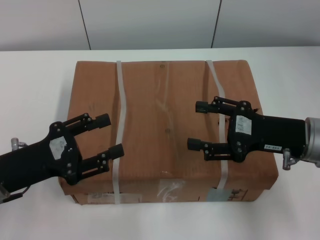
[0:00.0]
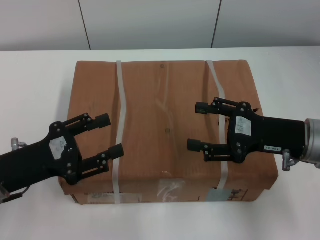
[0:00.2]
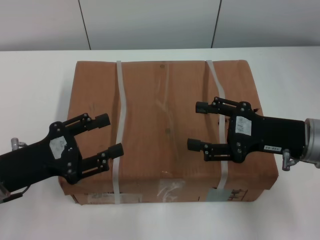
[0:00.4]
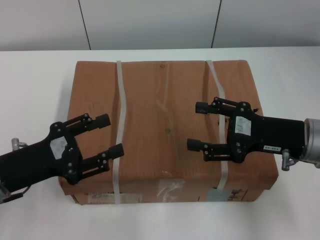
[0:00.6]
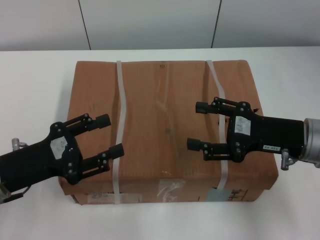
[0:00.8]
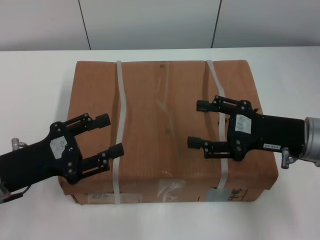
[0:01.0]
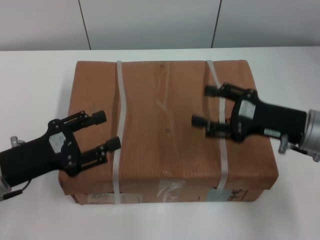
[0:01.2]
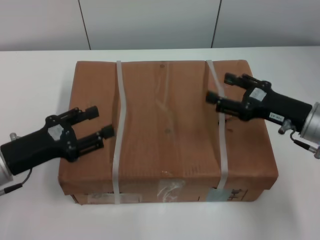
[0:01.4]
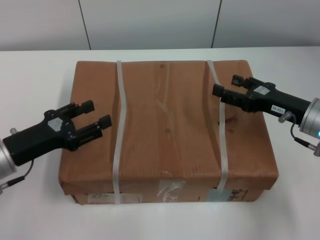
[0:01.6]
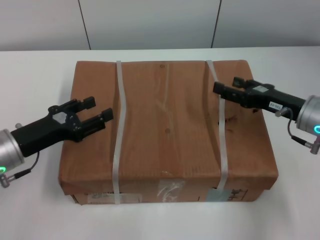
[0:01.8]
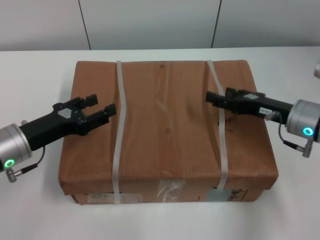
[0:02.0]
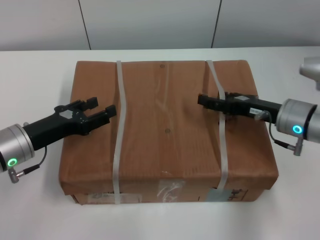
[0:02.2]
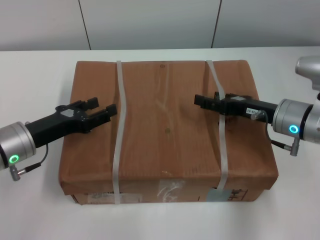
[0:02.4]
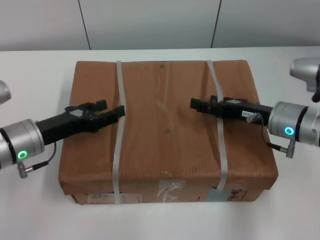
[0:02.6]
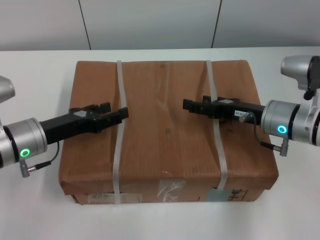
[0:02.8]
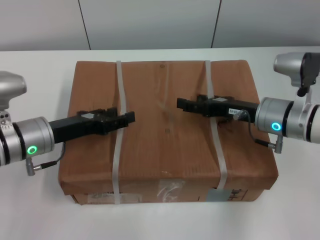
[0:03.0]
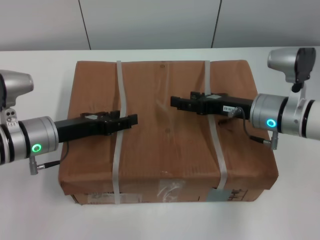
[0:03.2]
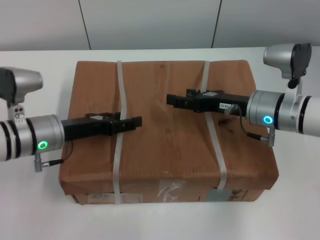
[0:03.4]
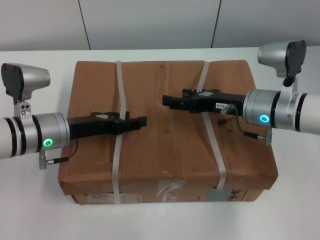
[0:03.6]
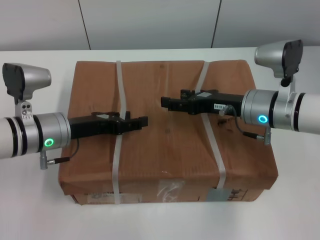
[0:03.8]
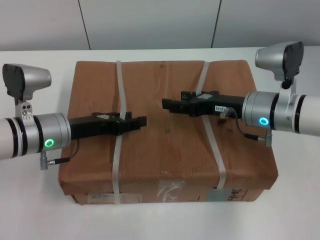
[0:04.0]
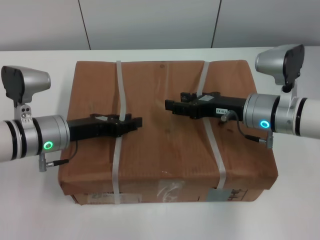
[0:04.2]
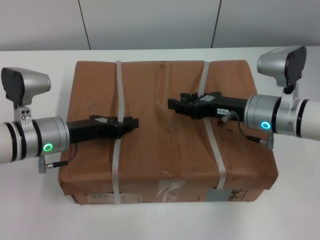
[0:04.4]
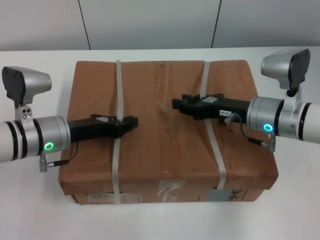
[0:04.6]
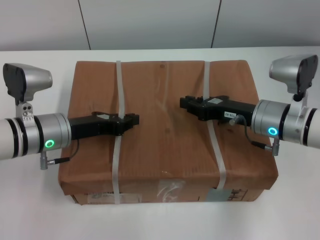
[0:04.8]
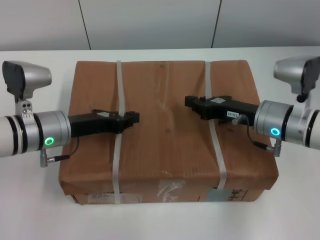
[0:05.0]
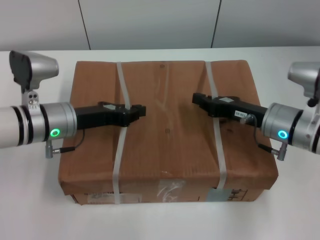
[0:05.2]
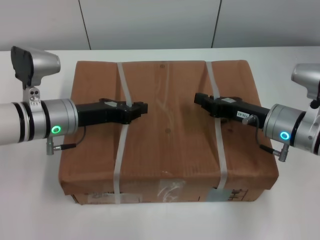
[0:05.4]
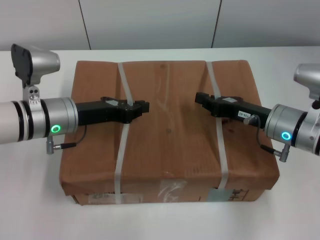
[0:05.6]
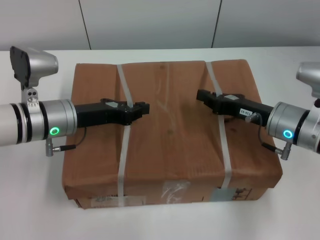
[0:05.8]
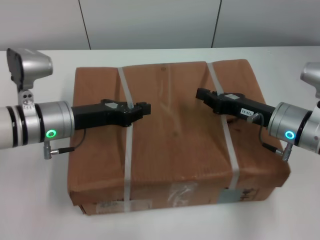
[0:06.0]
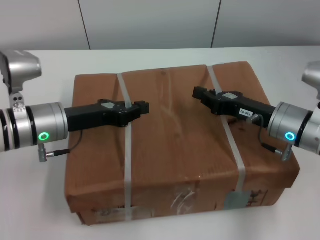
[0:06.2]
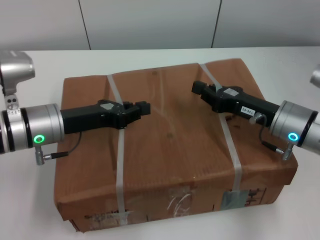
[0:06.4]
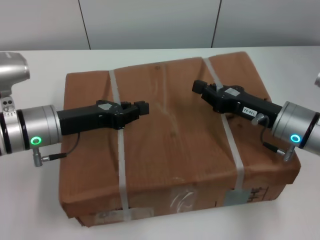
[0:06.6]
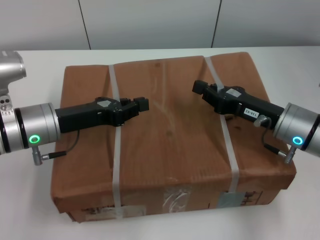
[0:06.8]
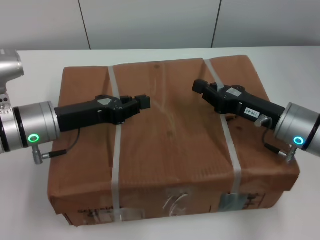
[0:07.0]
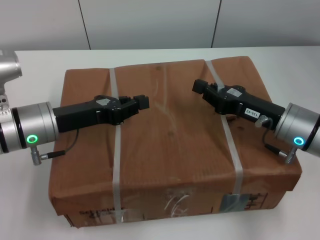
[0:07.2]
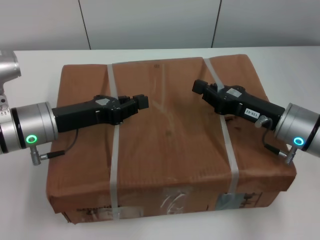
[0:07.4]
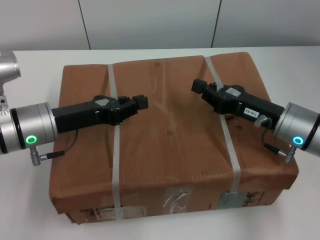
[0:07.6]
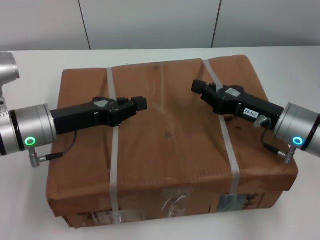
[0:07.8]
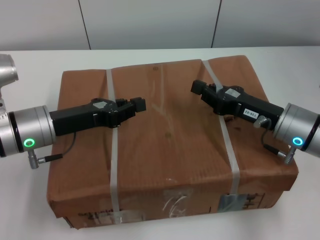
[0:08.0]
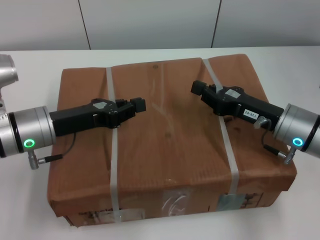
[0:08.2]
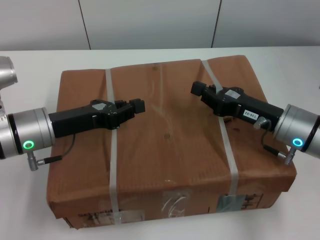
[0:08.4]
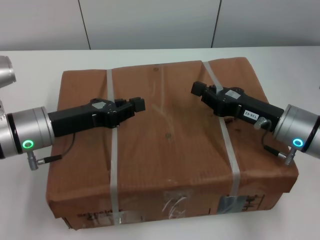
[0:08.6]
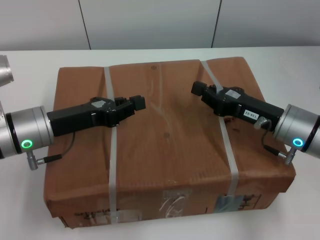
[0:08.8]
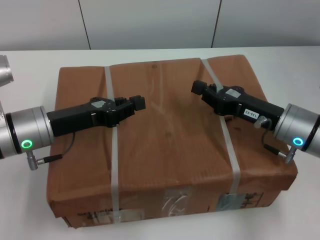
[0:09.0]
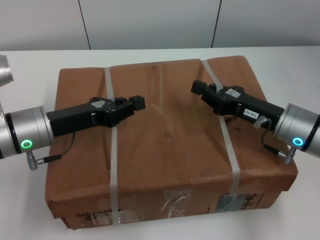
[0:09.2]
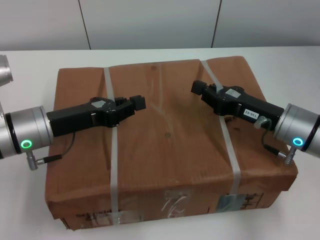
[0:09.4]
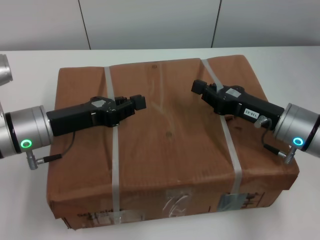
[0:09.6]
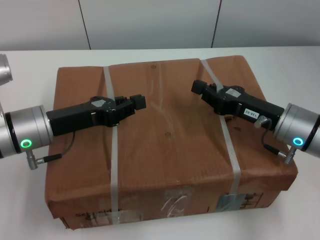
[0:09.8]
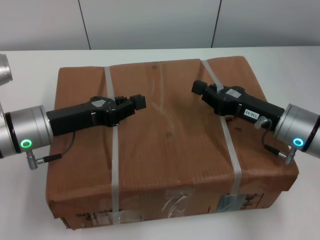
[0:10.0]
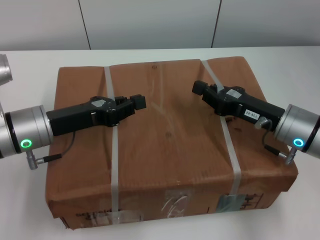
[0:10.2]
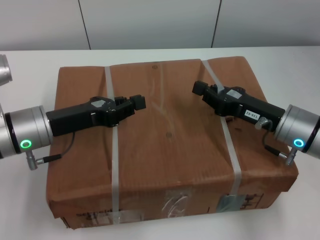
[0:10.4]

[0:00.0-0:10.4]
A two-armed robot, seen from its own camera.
Task of the whole recording: pick up the box from the table with both arms.
Step, 0:00.0 to 0:05.0: Grasp the bandage with left gripper.
Step, 0:00.0 to 0:05.0: Grasp the bandage with right gripper.
Step, 0:05.2 to 0:06.8: Lift the box with left gripper.
Step, 0:05.2 to 0:06.8: Lift the box with right gripper.
0:01.4 to 0:03.0: The right gripper travels to the left by some 5 cm, while the left gripper shifts about 5 cm forward.
0:03.0 to 0:04.4: The left gripper closes its fingers.
0:04.4 to 0:06.0: The right gripper closes its fingers.
0:07.4 to 0:10.4: Both grippers stay put.

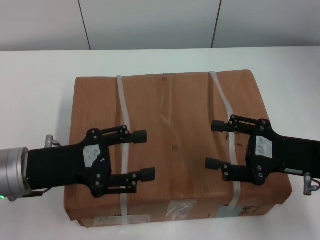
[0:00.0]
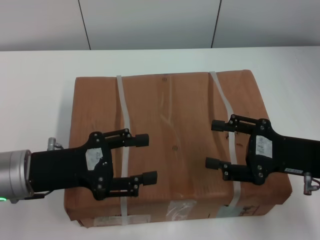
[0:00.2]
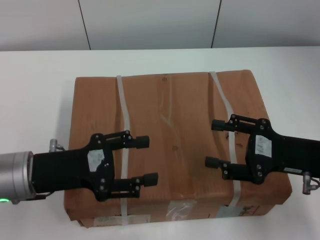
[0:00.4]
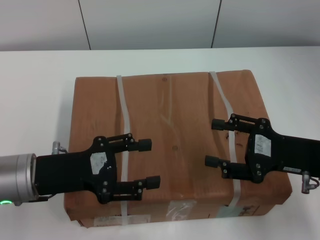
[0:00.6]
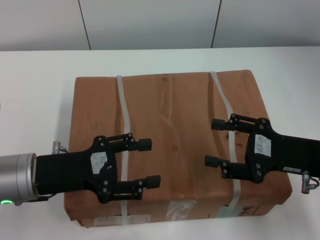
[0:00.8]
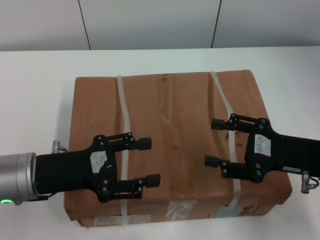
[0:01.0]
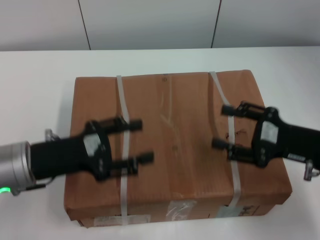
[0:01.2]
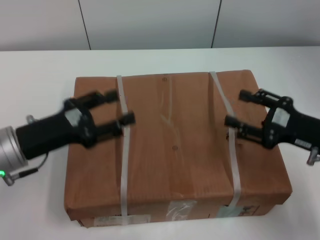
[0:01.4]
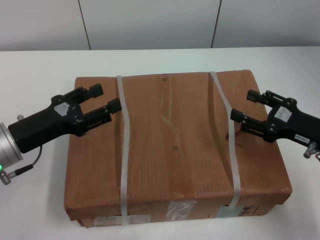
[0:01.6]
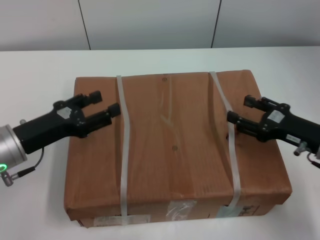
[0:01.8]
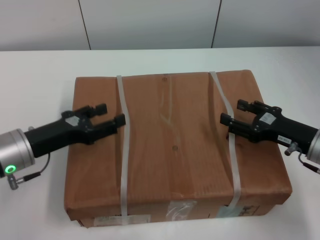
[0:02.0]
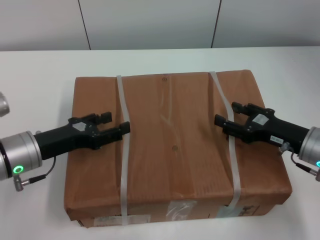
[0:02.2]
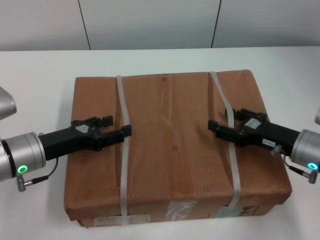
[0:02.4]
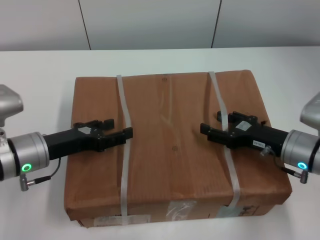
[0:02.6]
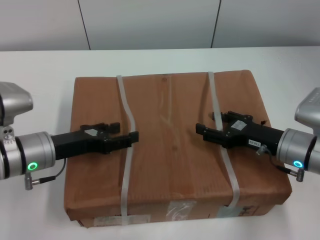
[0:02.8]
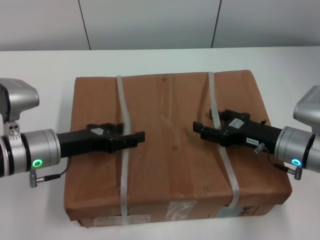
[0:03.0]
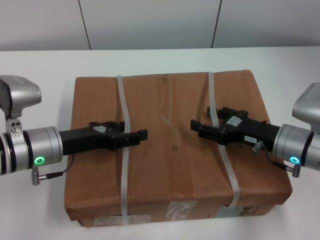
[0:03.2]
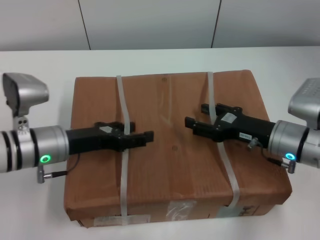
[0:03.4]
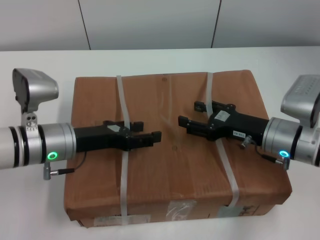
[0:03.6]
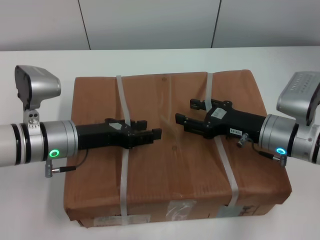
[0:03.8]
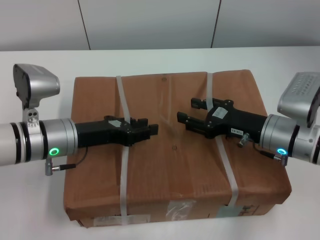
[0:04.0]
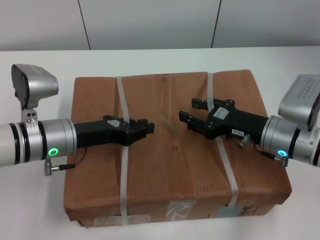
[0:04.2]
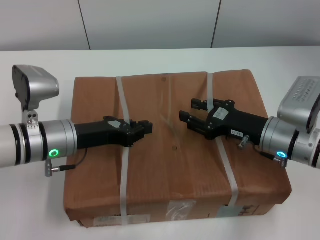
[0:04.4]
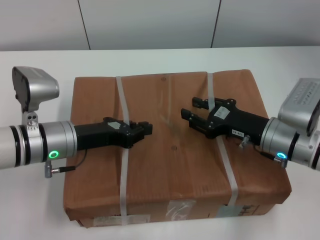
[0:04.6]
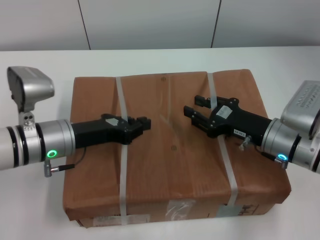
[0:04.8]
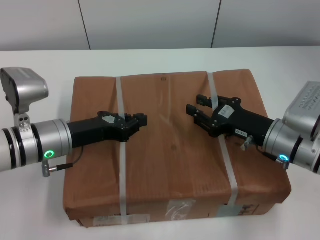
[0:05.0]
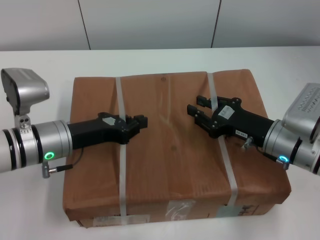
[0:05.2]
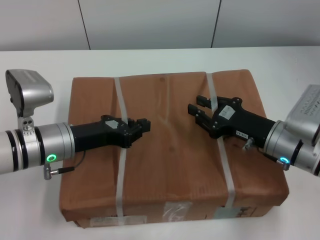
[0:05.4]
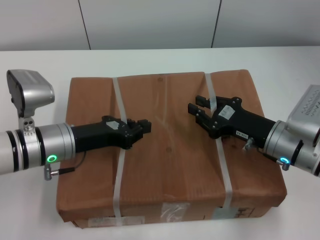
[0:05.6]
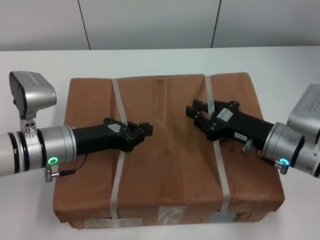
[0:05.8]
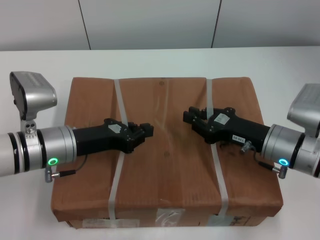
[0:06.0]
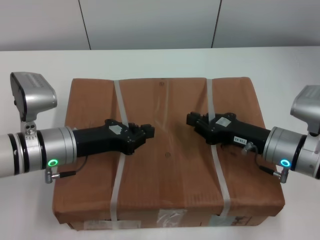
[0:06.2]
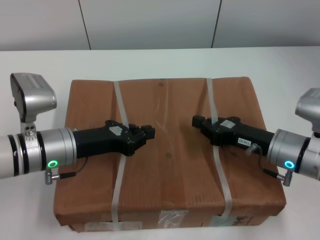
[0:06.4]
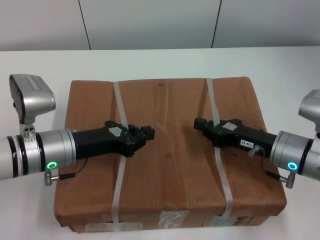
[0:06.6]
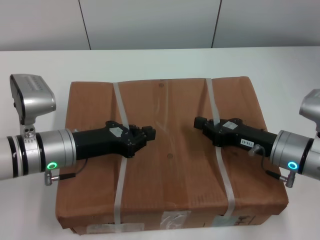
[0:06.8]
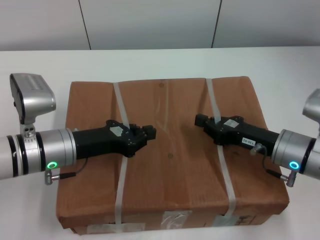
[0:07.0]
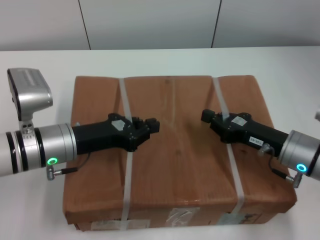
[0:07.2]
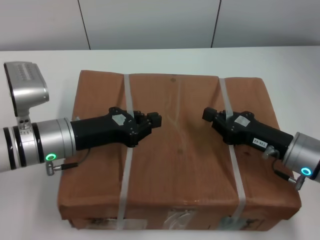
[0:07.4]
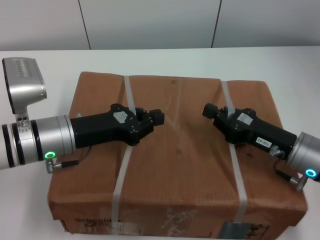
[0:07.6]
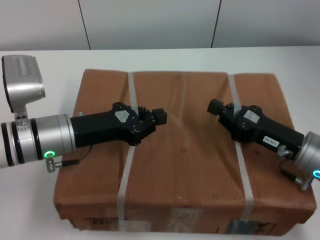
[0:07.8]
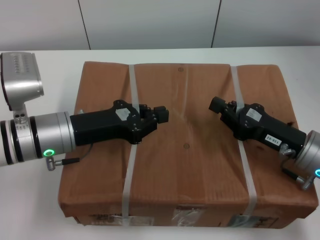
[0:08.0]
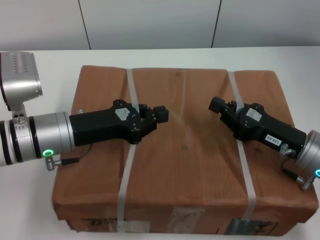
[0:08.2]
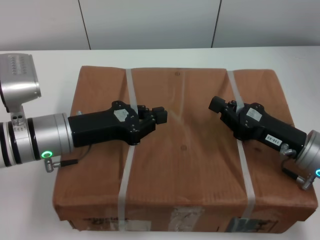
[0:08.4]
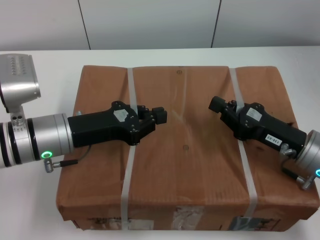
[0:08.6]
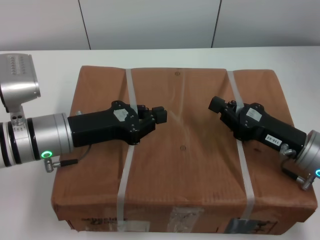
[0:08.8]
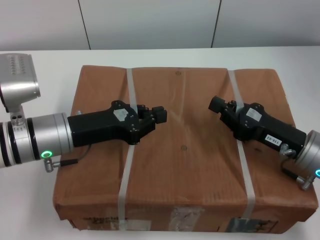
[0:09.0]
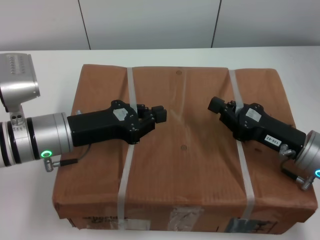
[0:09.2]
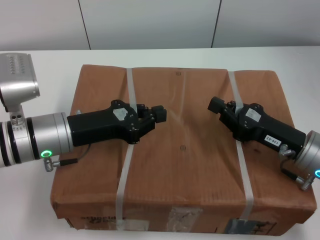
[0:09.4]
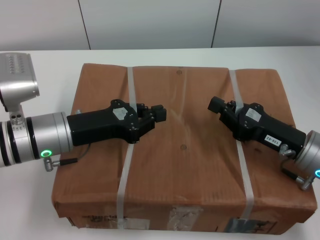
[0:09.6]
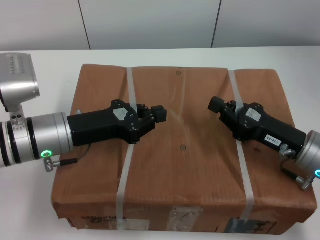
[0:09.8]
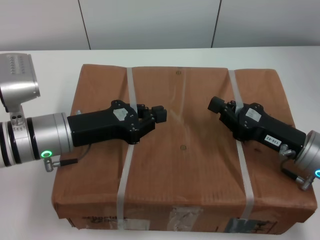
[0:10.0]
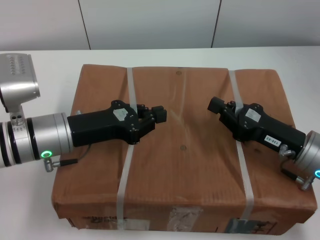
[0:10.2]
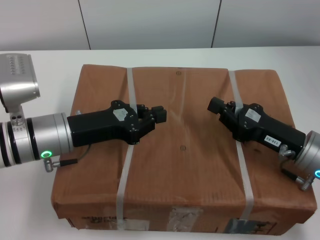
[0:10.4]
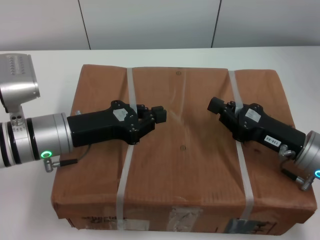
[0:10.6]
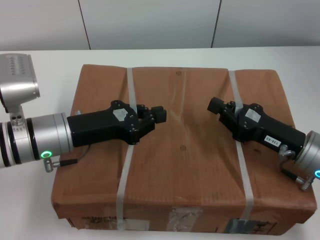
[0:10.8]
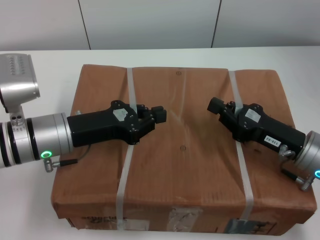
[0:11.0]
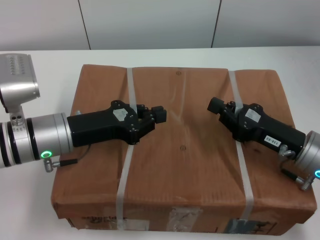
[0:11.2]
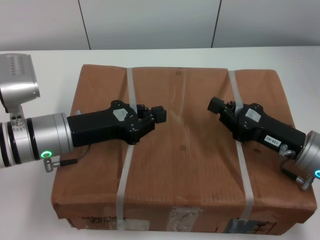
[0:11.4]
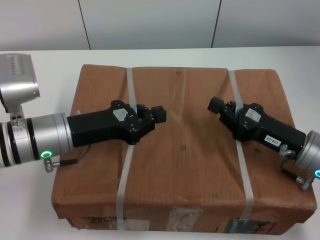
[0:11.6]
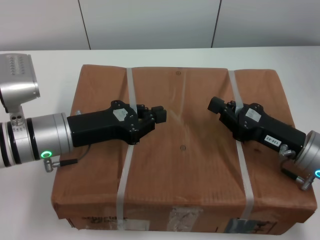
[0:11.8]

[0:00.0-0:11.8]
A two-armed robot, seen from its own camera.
Task of the whole recording: pick up the box from the table with both arms.
Step, 0:00.0 to 0:06.4: Grasp the bandage with left gripper.
Step, 0:00.0 to 0:06.4: Grasp the bandage with right gripper.
Step, 0:06.6 to 0:08.2: Lift the box with left gripper.
Step, 0:06.6 to 0:08.2: Lift the box with right gripper.
0:01.4 to 0:03.0: The right gripper is displaced to the left by some 5 cm. The left gripper shifts by about 5 cm.
0:03.0 to 0:04.4: The left gripper closes.
0:04.4 to 0:06.0: The right gripper closes its fingers.
0:08.8 to 0:11.8: Neither gripper changes place.
